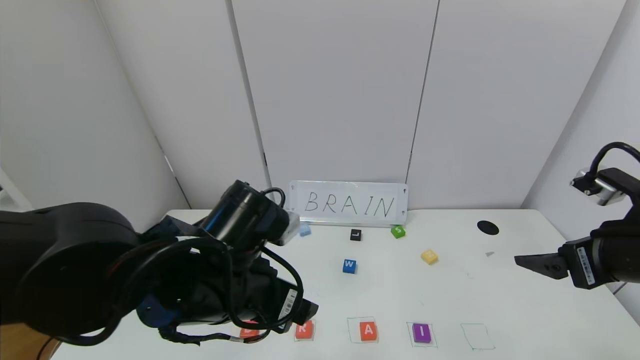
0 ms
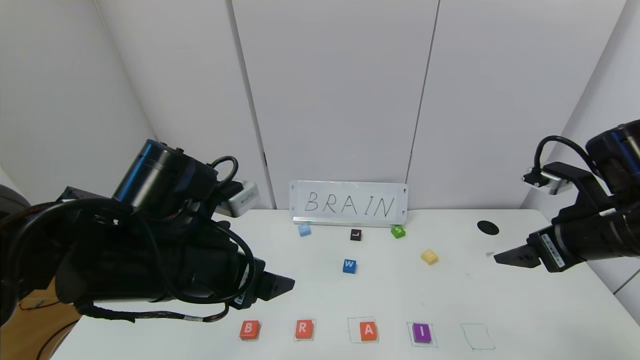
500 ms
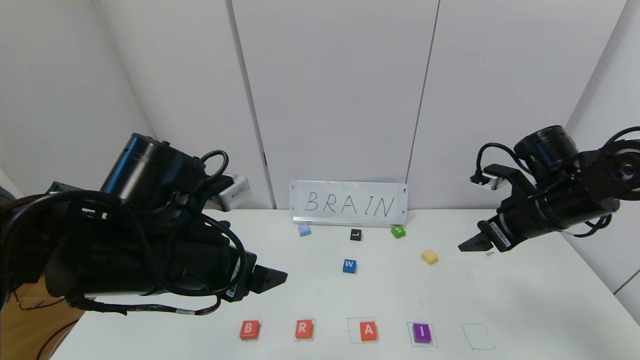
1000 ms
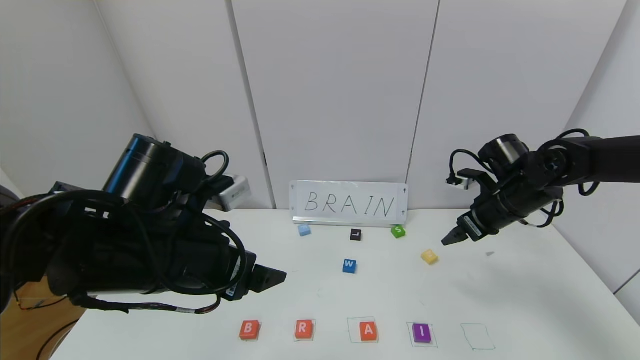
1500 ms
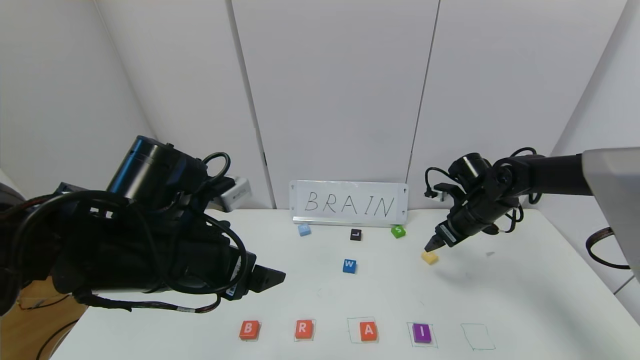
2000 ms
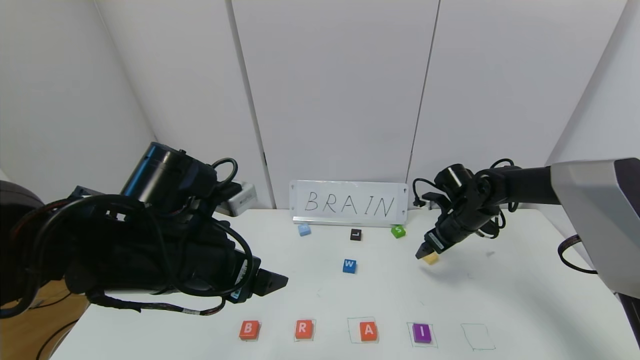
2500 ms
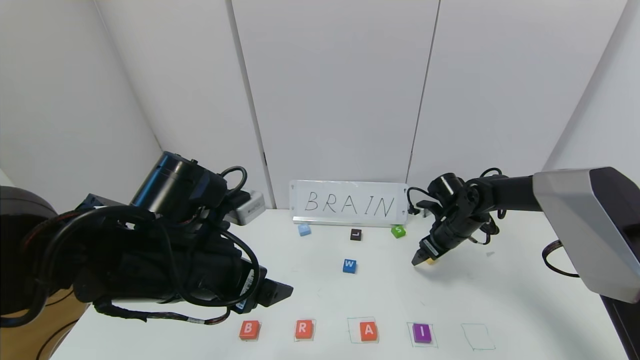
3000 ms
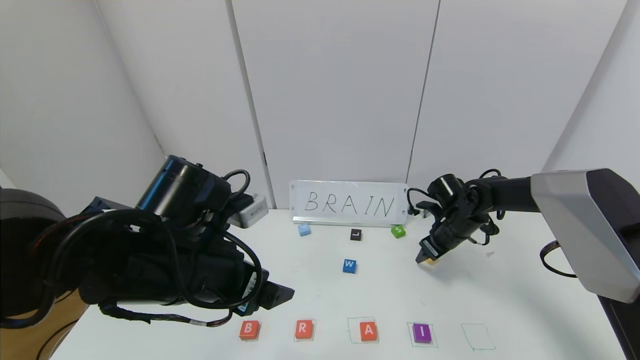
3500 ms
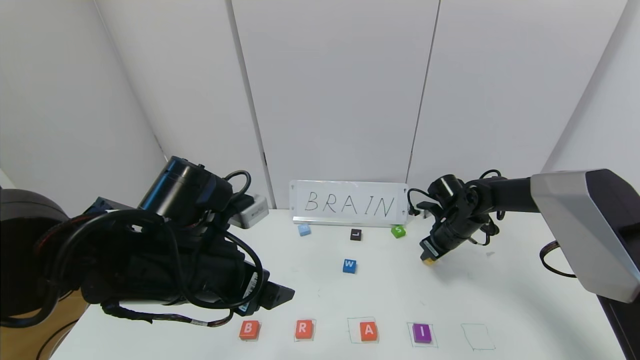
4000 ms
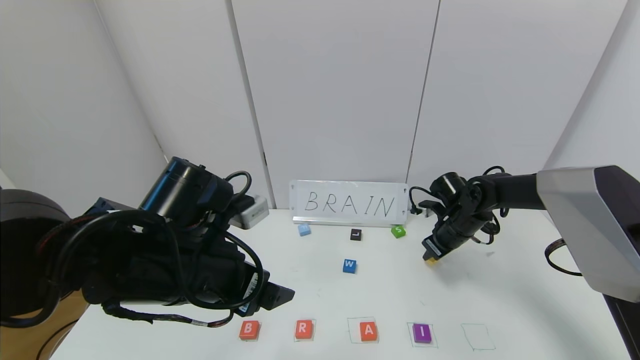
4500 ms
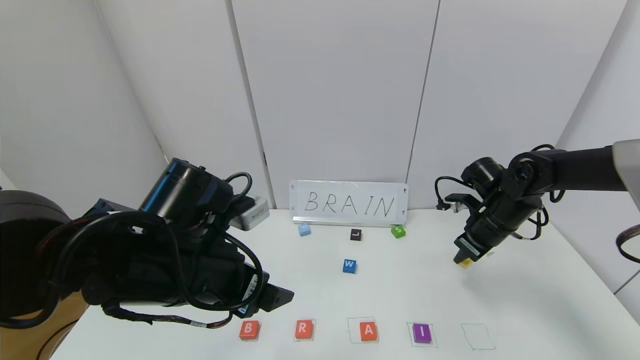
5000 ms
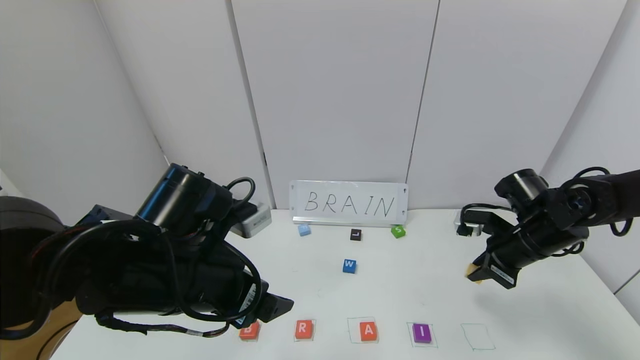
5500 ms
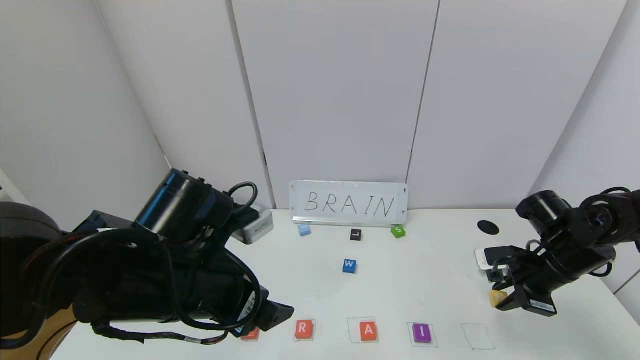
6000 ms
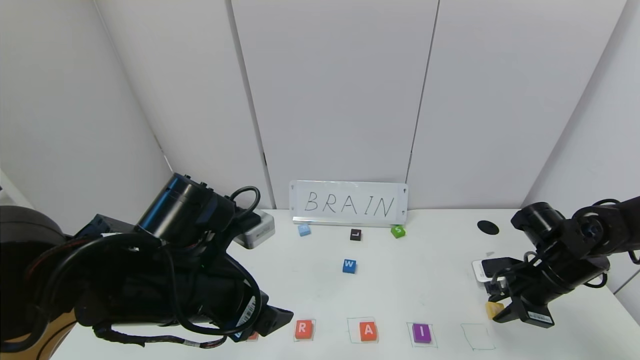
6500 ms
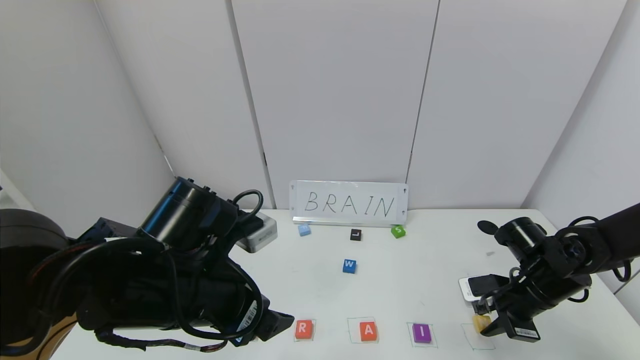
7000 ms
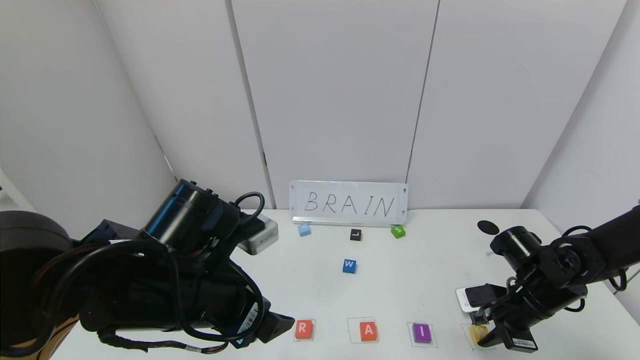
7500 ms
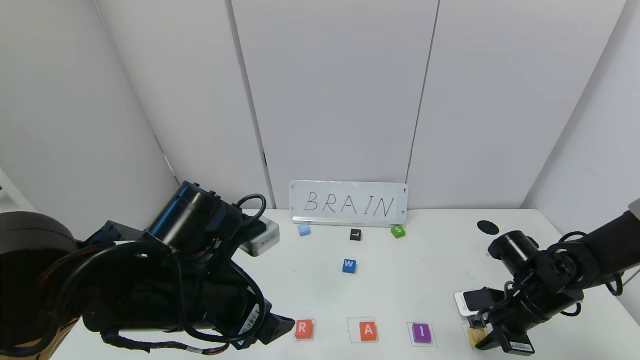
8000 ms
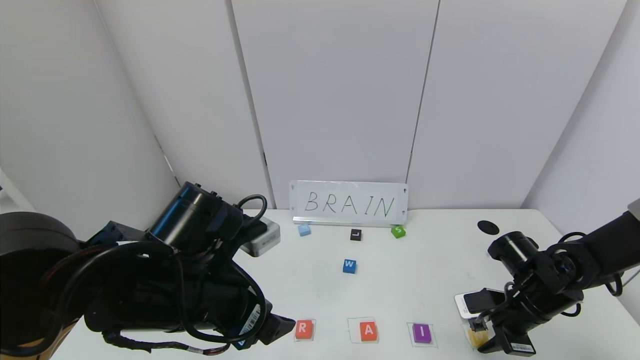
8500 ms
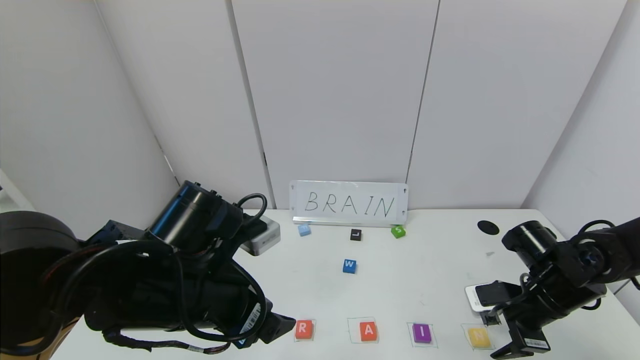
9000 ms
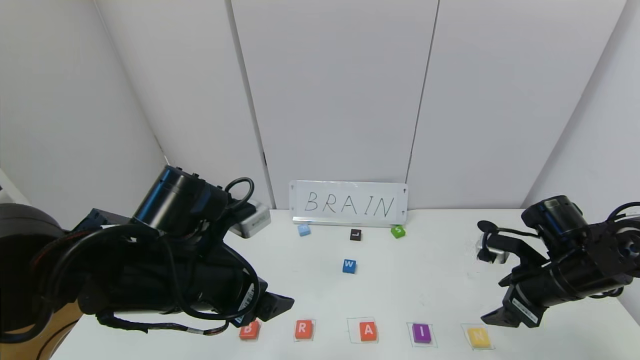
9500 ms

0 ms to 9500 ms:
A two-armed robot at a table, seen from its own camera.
Task of the whole recording: use the gripper to find blocks with the letters b, a, a, and i on the table and arrange them into BAAI, then find r and N and turn the arranged baai into brian.
Step, 0 ms to 8500 ms: Place the block N in the fifth location.
0 ms to 2000 ms: The right gripper is displaced forward and downward by approximately 25 cm. Meanwhile the left gripper shifts about 5 cm to the left.
2000 ms to 4000 ms: The right gripper heads downward, covering some 5 cm, and closes its fingers.
4000 ms to 5500 ms: The right gripper goes approximately 15 cm backward, upward and to the right.
5500 ms to 7500 ms: The right gripper moves downward, roughly 10 cm.
7500 ms to 9500 ms: The right gripper moves upward, roughly 5 cm, and opens.

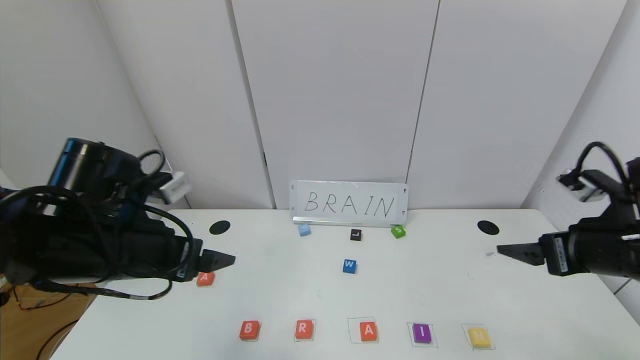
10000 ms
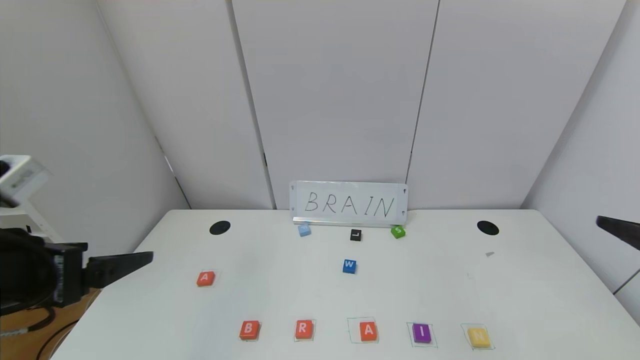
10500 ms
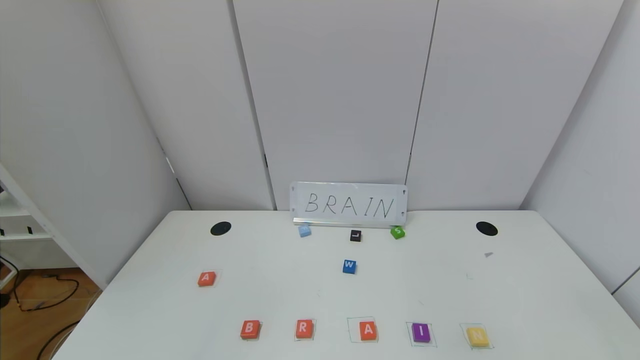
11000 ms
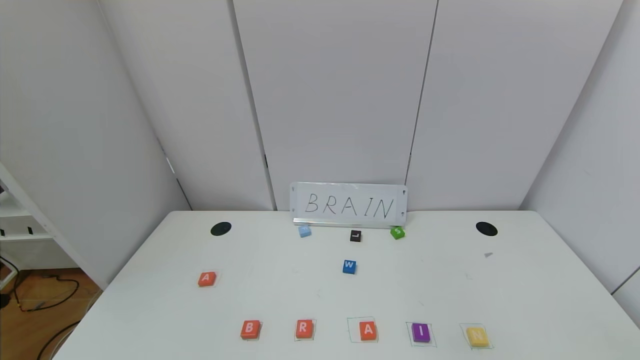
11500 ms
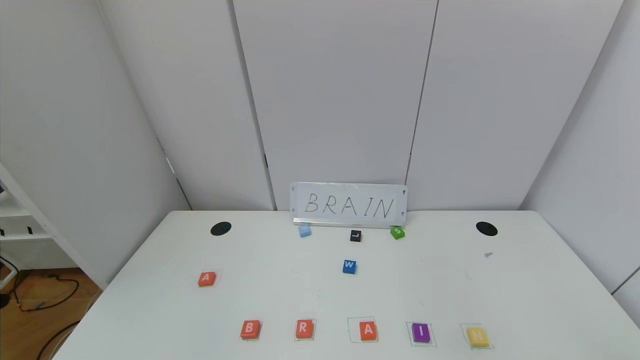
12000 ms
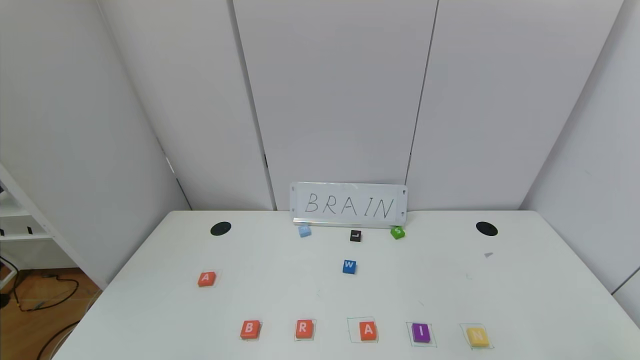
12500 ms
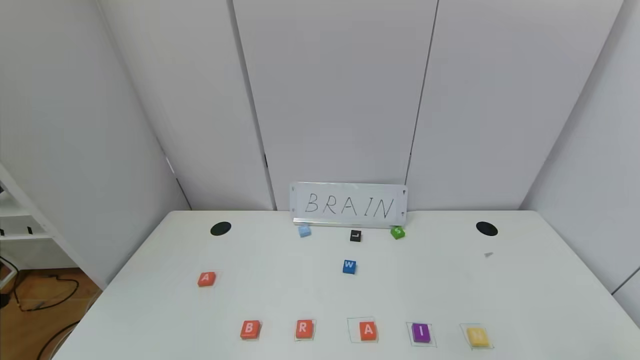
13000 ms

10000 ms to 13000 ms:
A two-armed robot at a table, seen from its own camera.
Task of the whole recording: use the gripper to find blocks with the letters b, a, a, and i on the table and arrange them into BAAI, then find r and N and turn the arranged baai into brian.
10000 ms to 11500 ms: Both grippers travel together backward, about 30 cm.
